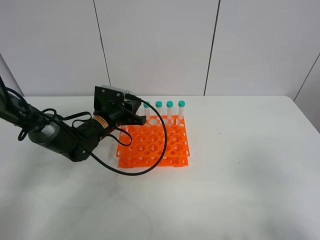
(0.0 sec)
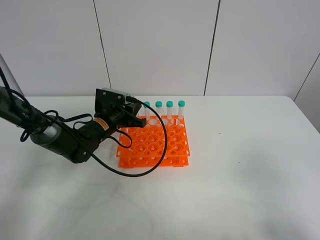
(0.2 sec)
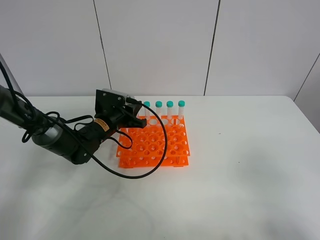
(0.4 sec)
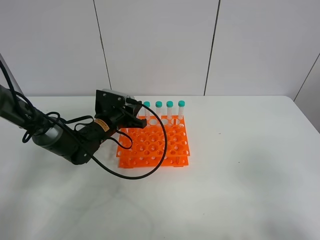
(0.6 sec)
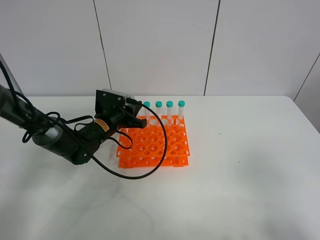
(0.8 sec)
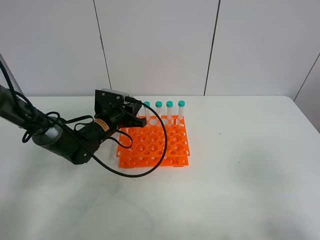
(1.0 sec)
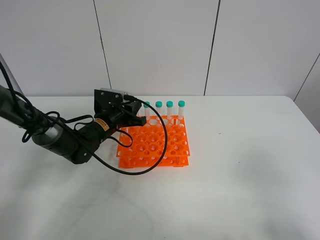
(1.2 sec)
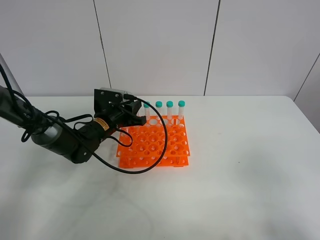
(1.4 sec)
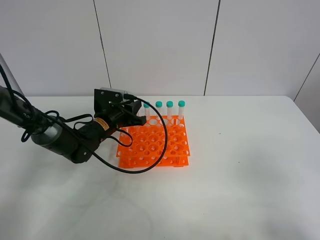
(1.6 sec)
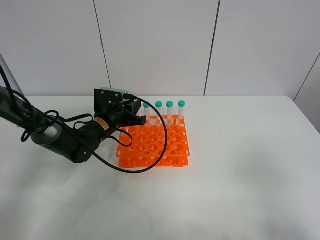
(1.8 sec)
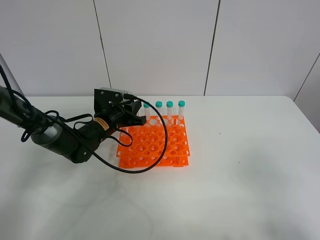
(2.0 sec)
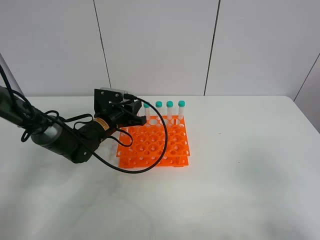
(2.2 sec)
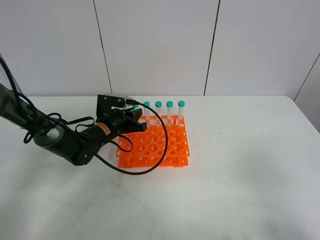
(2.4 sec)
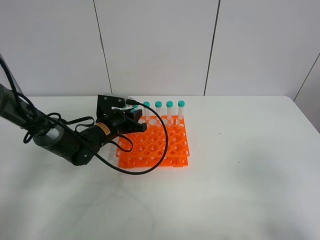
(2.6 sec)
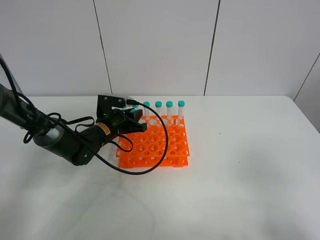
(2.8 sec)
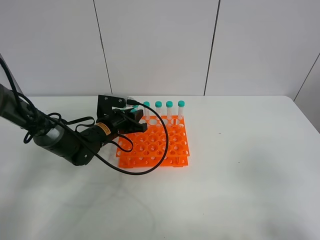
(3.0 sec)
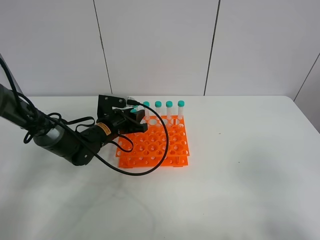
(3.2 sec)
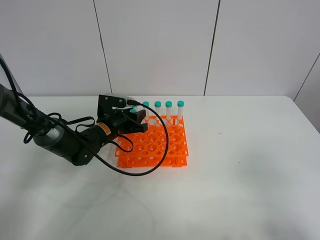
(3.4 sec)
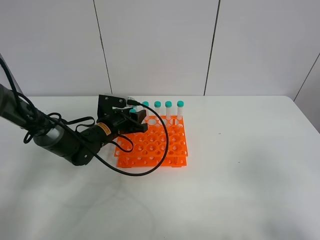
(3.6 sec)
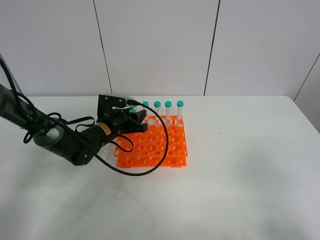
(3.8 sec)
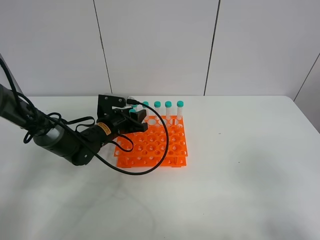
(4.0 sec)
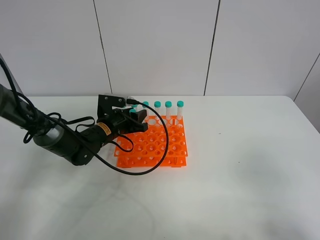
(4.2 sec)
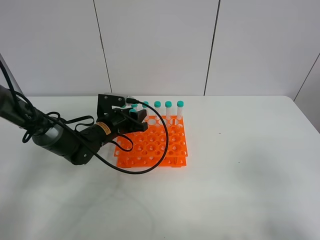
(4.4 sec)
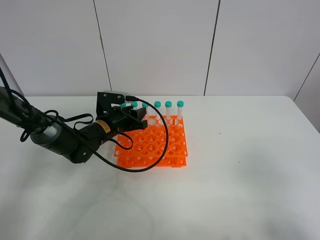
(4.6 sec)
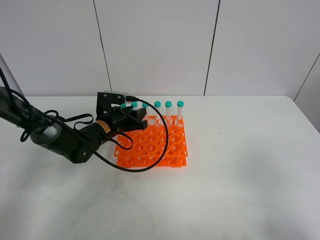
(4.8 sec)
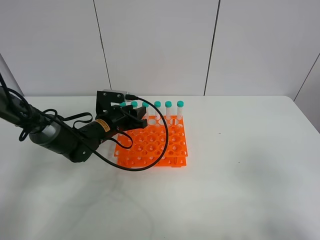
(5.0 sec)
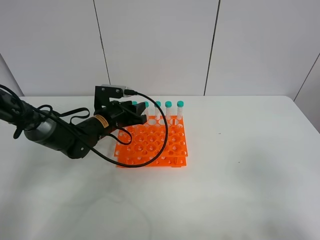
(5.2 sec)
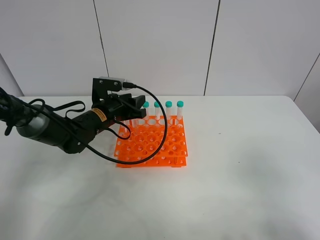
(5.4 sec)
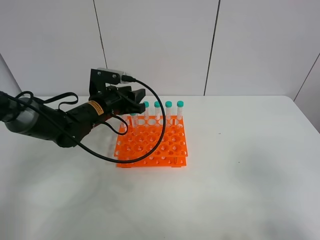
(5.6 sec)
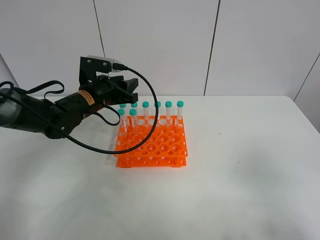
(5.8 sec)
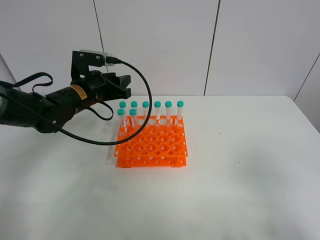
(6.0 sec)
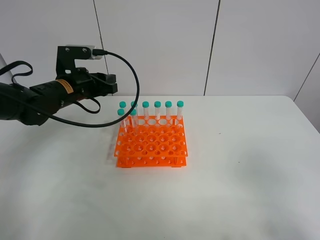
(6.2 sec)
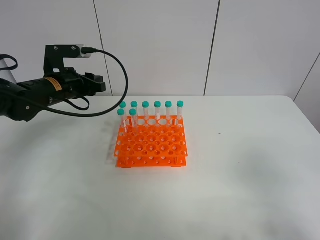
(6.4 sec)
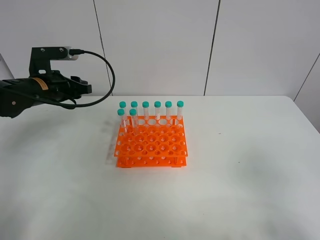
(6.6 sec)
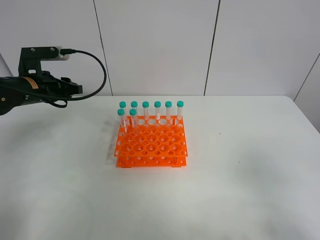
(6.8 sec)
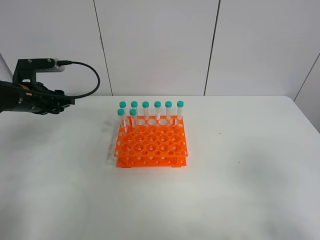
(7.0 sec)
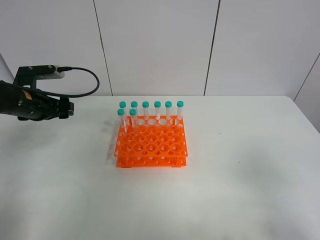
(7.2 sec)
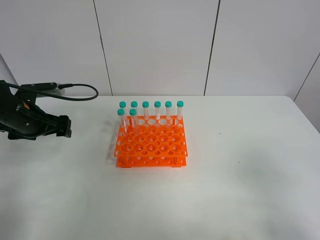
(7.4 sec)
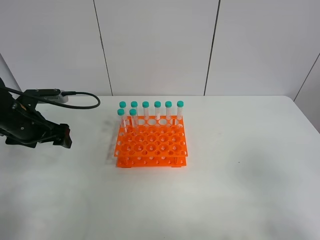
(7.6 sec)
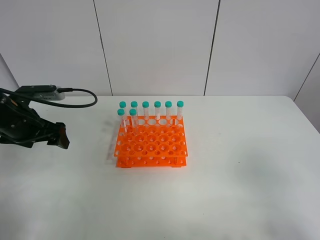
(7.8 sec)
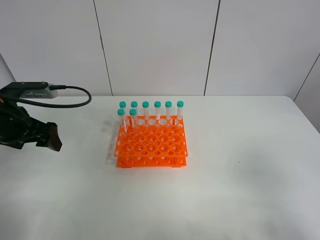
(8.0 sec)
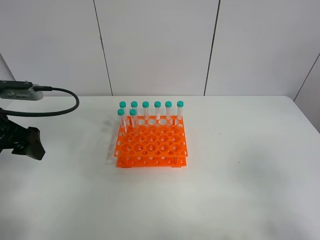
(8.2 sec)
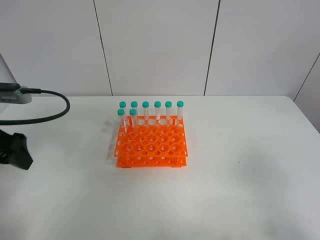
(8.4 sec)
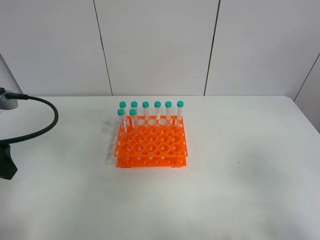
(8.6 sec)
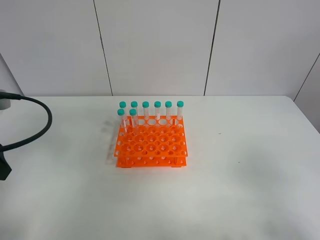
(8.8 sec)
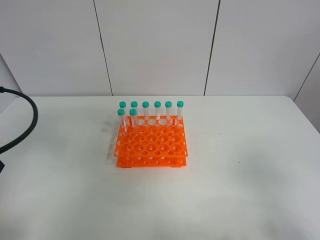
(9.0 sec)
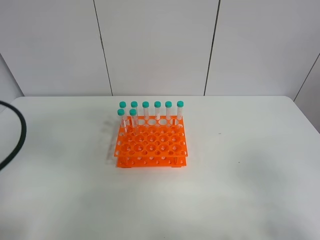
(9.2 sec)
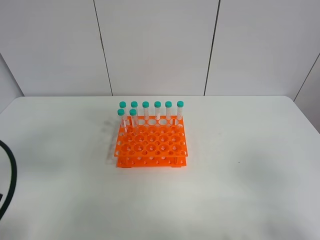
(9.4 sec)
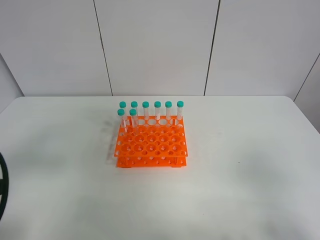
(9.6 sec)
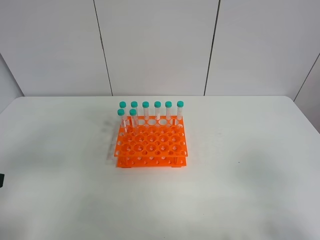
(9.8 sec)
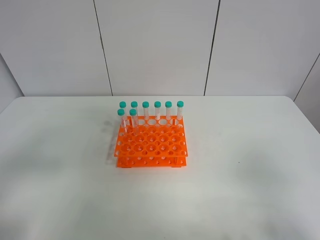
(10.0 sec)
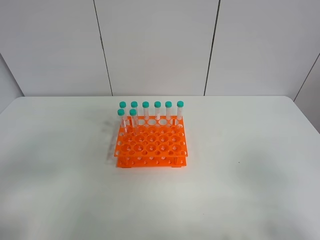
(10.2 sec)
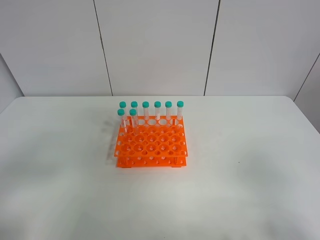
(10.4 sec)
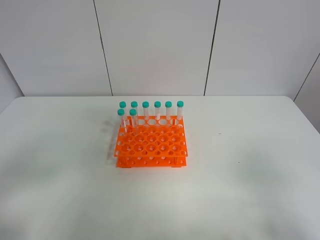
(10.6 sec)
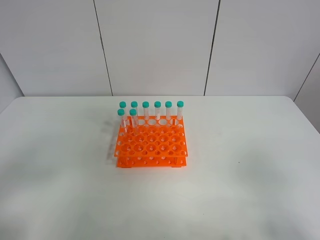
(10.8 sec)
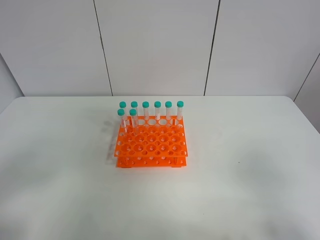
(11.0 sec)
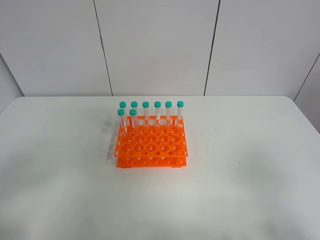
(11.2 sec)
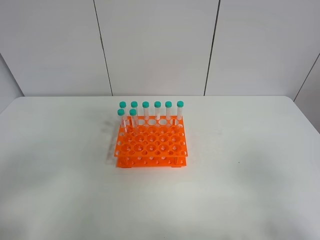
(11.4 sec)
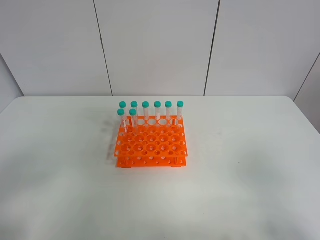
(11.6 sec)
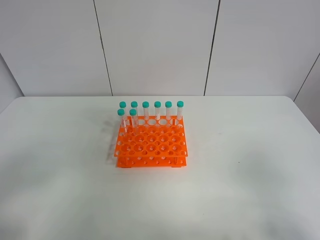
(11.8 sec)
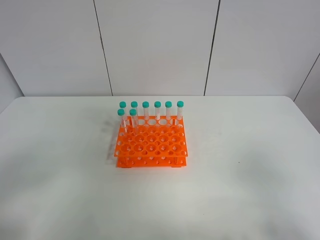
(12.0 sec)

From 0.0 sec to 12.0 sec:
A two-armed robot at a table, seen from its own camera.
Task of the whole recording: Put the test tube on the table back onto the test tube rack.
Step, from 0.0 sec to 6.2 sec: Place the test tube on the test tube rack with the left gripper.
From 0.0 sec to 1.6 sec: The two grippers keep their place.
From 1.6 sec to 3.0 sec: The grippers stay close to where they were, moving slightly.
From 3.0 sec to 4.4 sec: Neither gripper changes place.
From 4.4 sec to 6.0 sec: The left gripper travels upward by roughly 10 cm.
From 6.0 sec to 7.6 sec: The left gripper goes approximately 15 cm to the left and backward, and opens up.
From 7.6 sec to 9.0 sec: The left gripper heads backward and upward, covering some 20 cm.
From 9.0 sec to 10.4 sec: The left gripper travels backward by some 10 cm.
